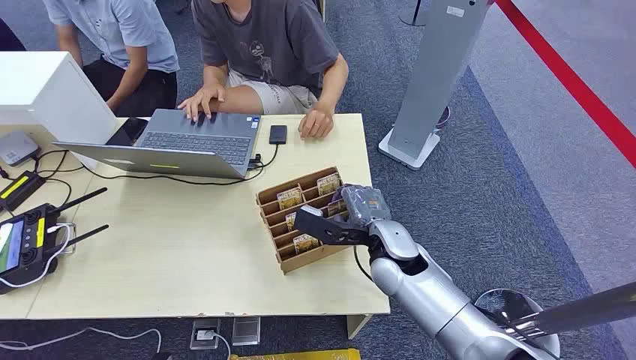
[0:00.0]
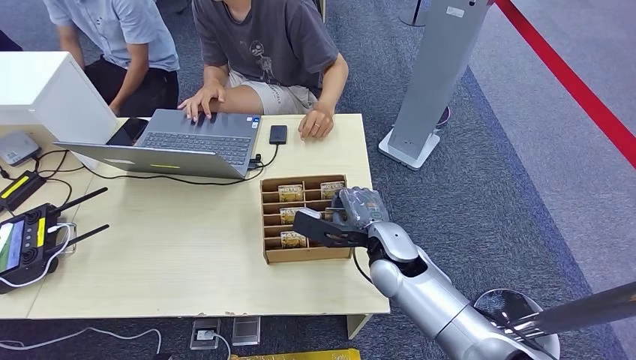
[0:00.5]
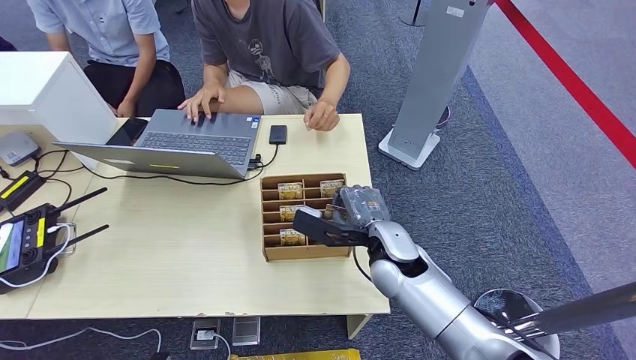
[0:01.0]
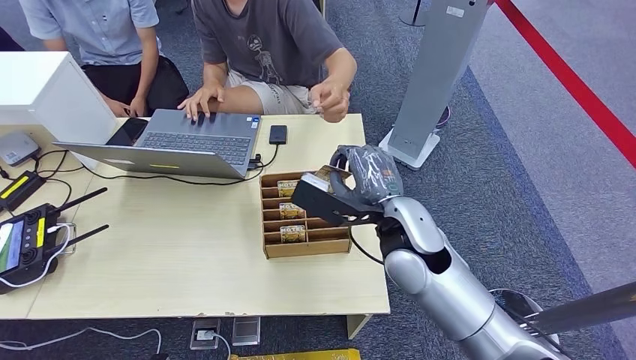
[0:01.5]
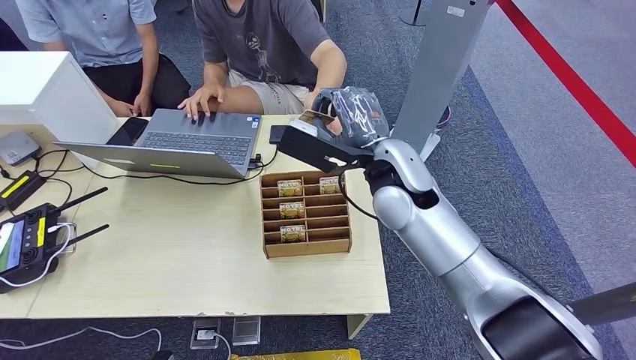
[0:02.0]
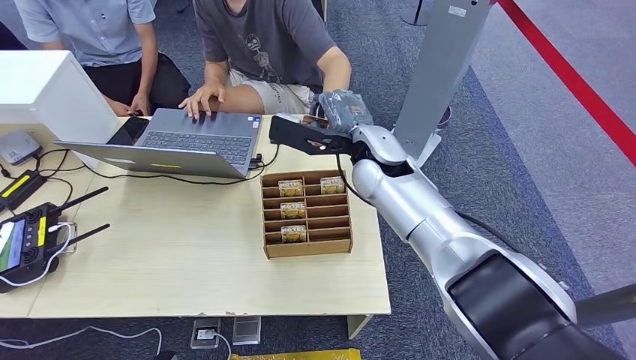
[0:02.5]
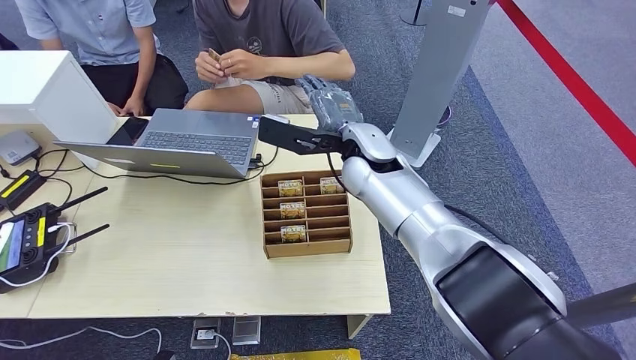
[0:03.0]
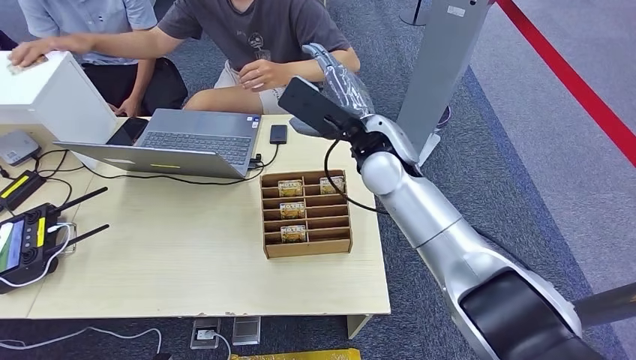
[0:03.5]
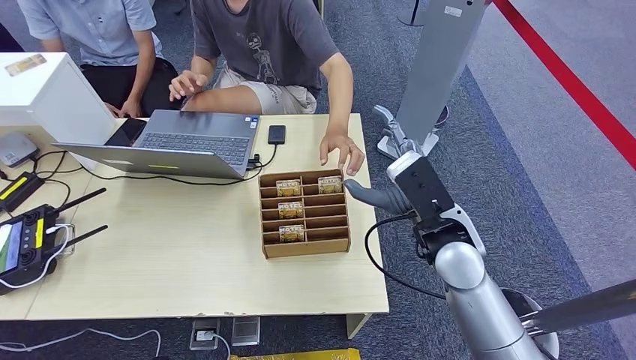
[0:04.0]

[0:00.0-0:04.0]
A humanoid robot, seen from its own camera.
Task of the whole recording: Pick up the card and hand it to the target person.
Step, 0:00.0 to 0:01.0: Pick up the key card from the card box.
Step, 0:01.5 to 0:04.0: Hand the key card to the target.
0:02.0 to 0:04.0: The right hand travels to the right, backward and downward by some 10 cm.
